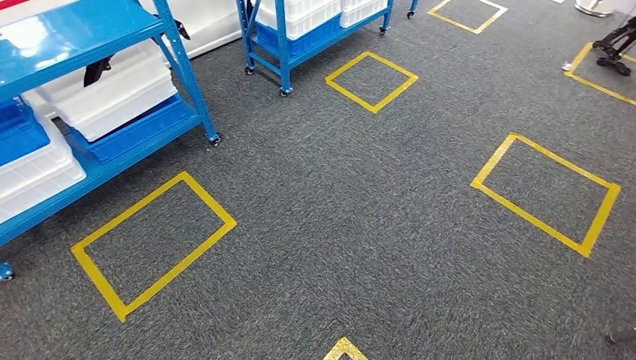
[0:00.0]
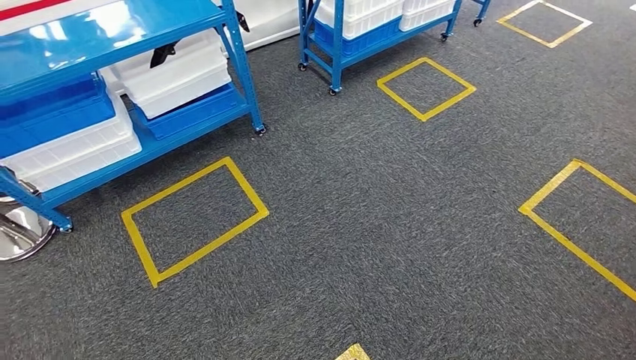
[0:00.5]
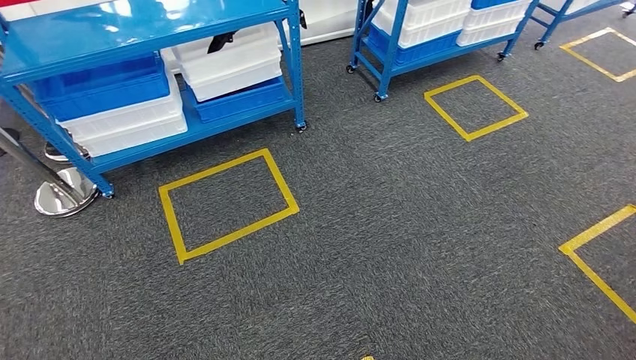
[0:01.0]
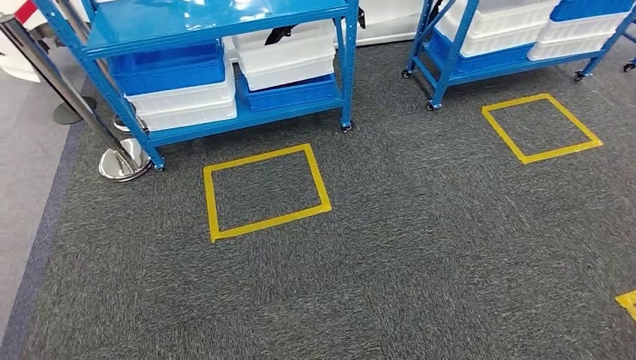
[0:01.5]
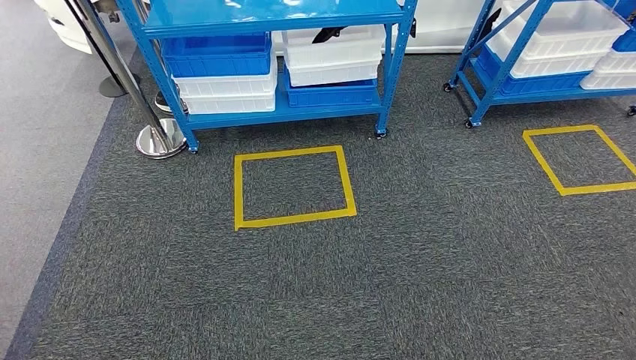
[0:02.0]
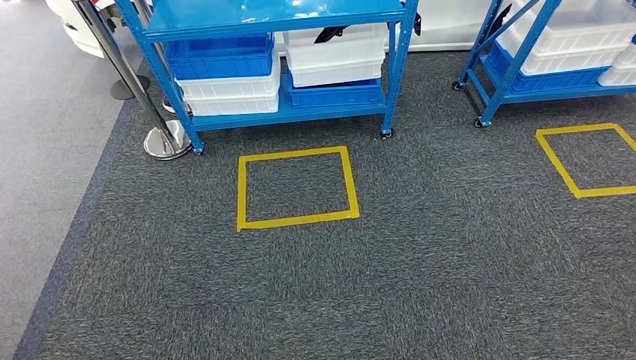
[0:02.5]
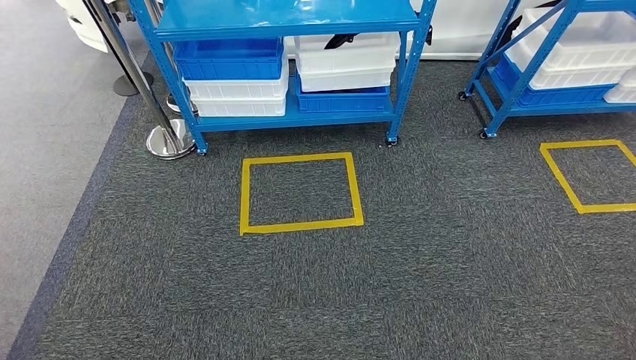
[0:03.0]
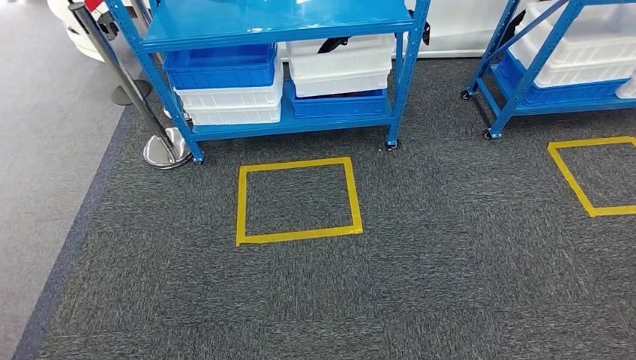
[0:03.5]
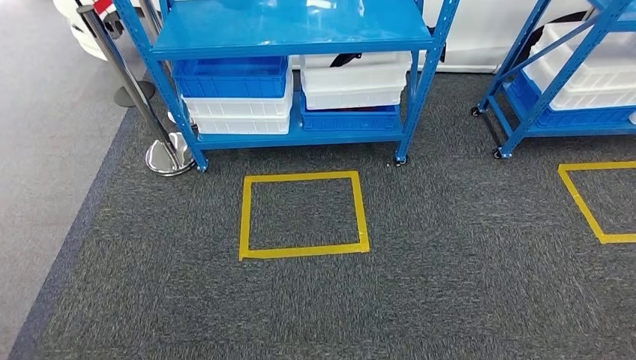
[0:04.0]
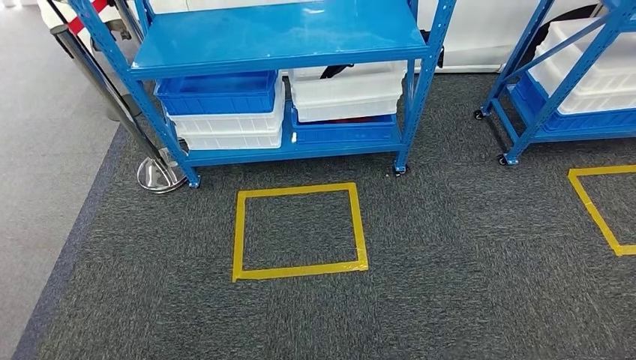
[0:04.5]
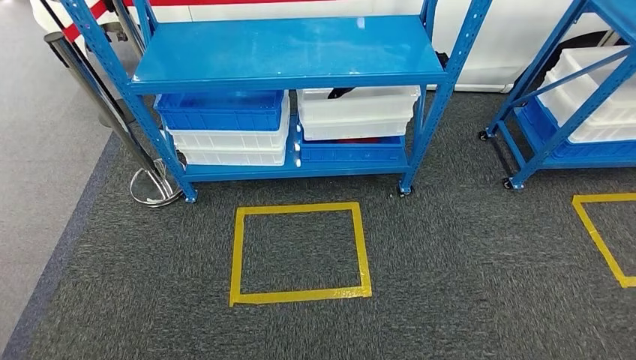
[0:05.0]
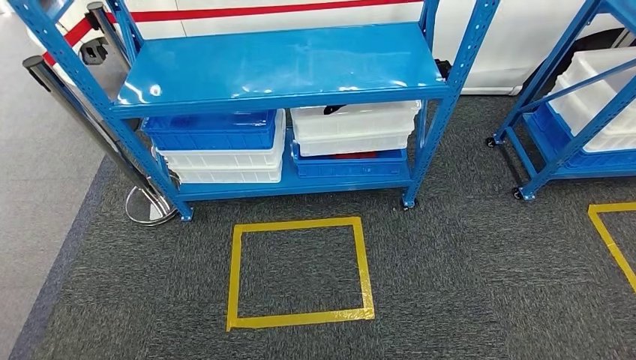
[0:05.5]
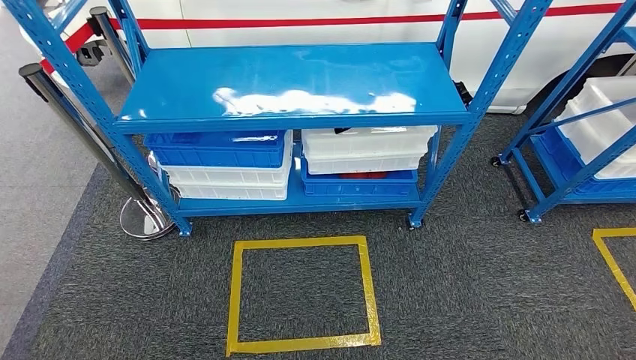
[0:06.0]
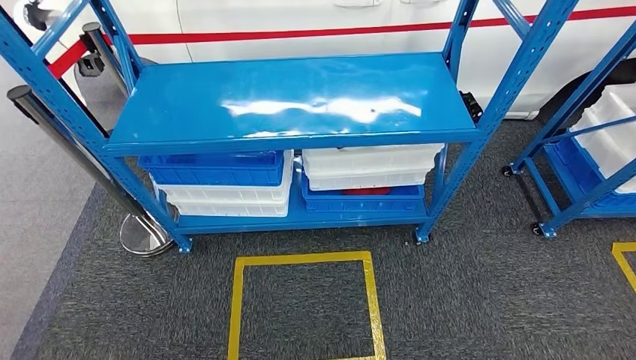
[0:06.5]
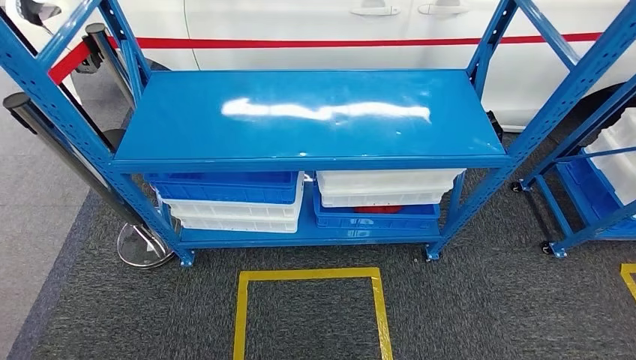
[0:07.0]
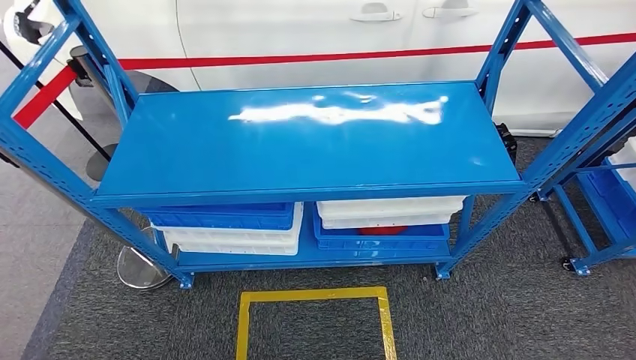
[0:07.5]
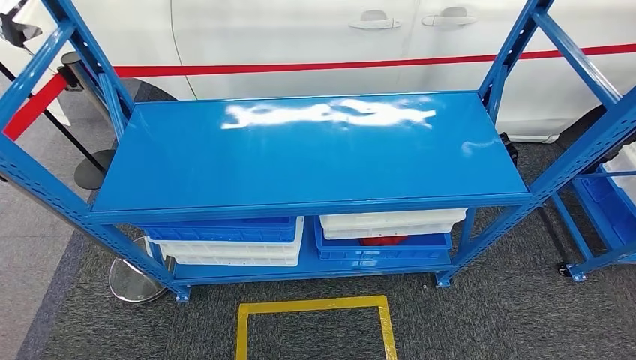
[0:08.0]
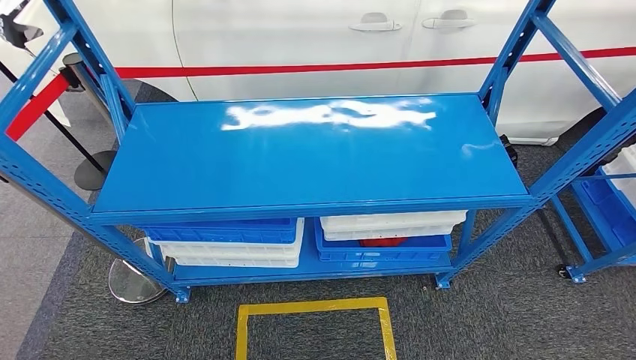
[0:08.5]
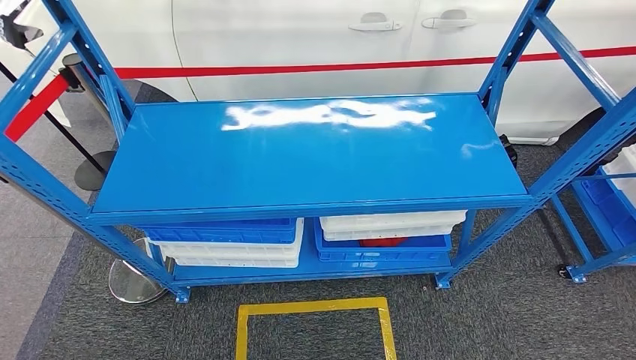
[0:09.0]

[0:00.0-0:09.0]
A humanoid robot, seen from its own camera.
Step, 0:00.0 to 0:09.0: Move to the initial position of the shelf.
